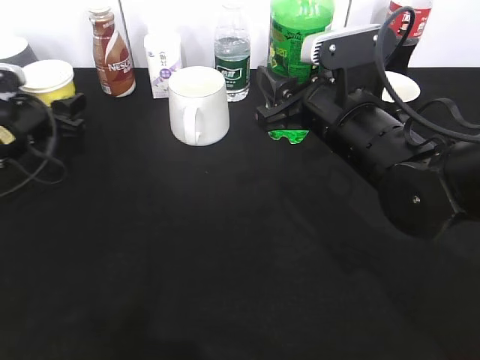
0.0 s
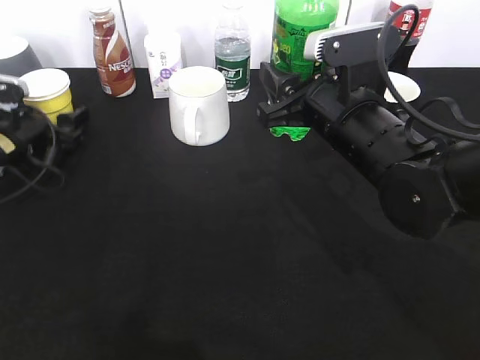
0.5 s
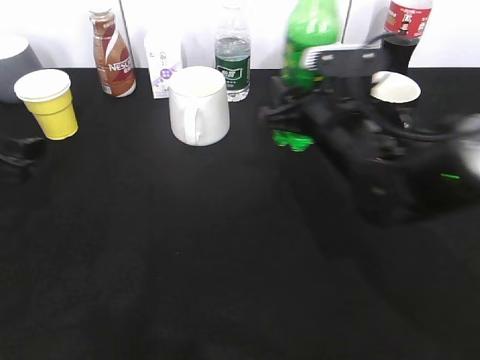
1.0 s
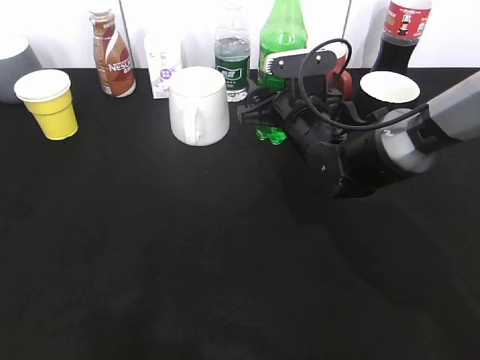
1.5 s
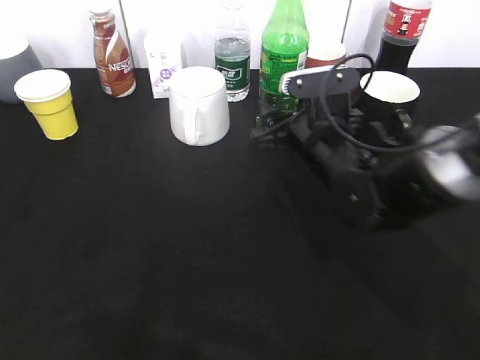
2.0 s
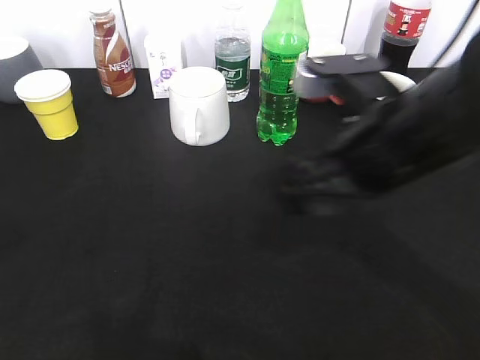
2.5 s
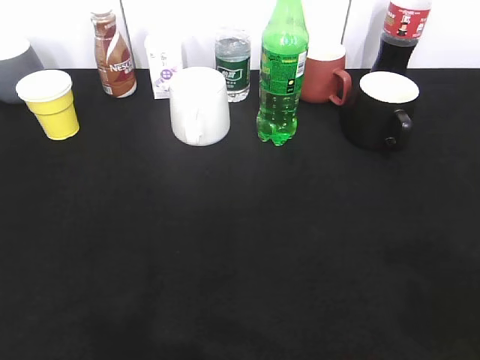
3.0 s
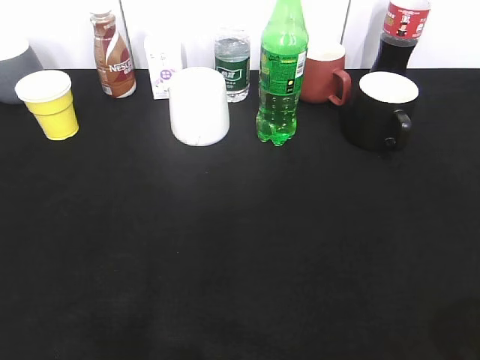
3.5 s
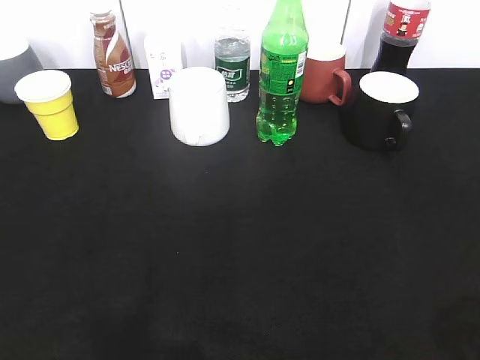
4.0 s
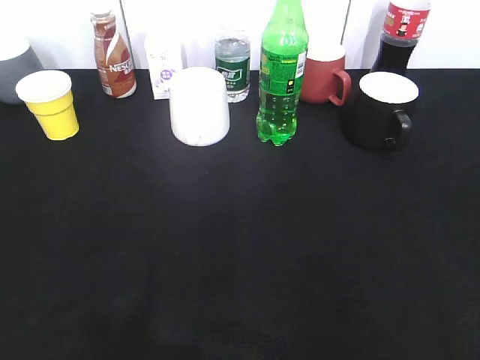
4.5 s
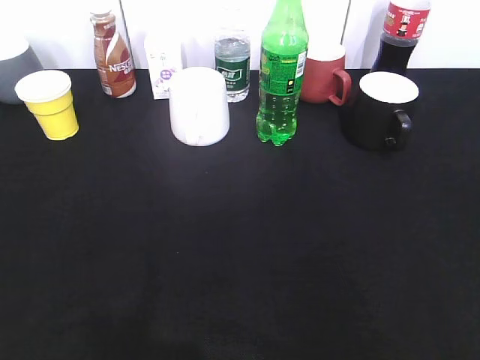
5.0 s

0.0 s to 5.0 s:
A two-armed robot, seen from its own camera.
Step, 0.0 to 1.5 s: Place the sprite bottle on the table with right gripper.
0.0 to 2.5 s: The left gripper travels backward and upward by some 30 cm, while the right gripper travels backward by some 5 cm, and opens up.
2.5 to 5.0 s: The right gripper heads backward and to the right, covering some 30 cm, and closes; the left gripper travels backward by approximately 20 cm, and closes its fingers.

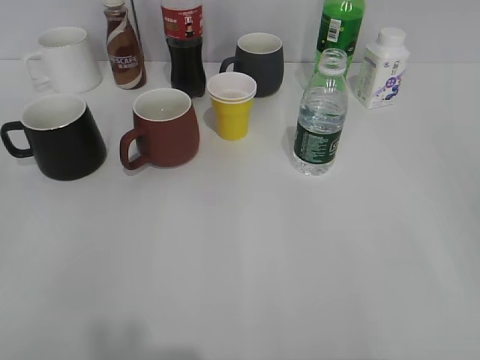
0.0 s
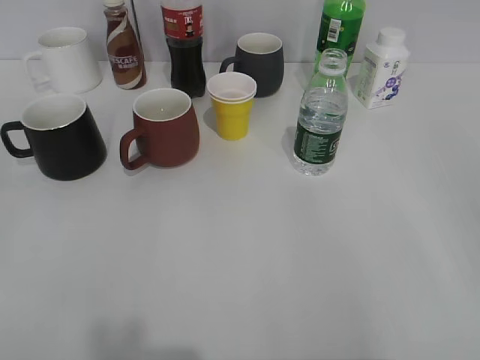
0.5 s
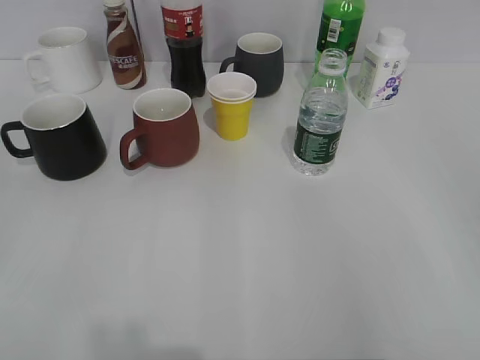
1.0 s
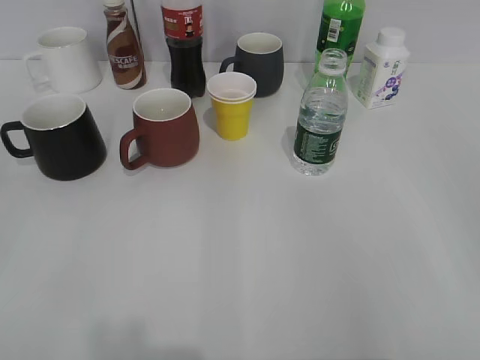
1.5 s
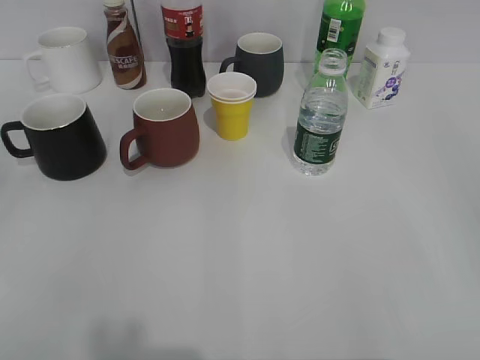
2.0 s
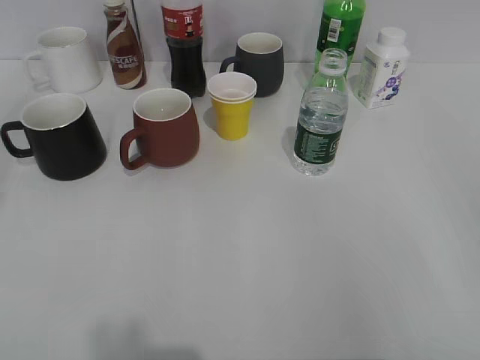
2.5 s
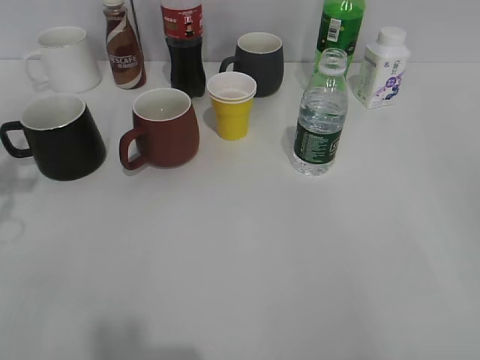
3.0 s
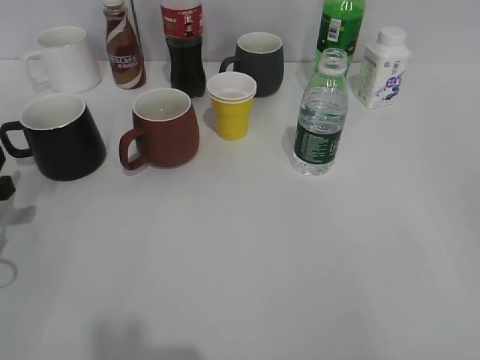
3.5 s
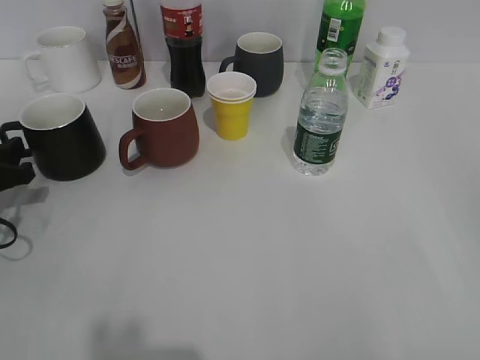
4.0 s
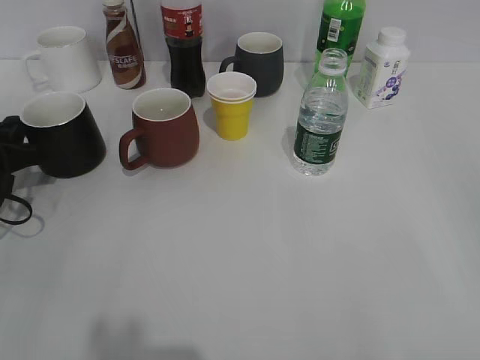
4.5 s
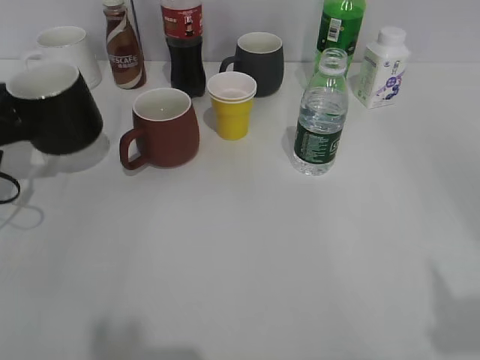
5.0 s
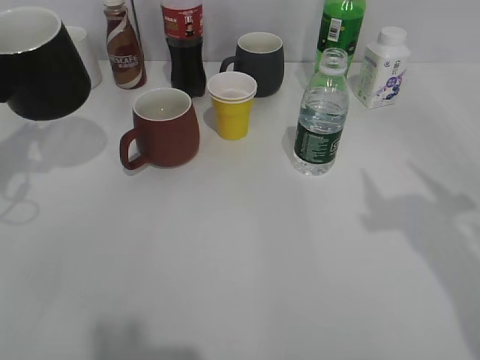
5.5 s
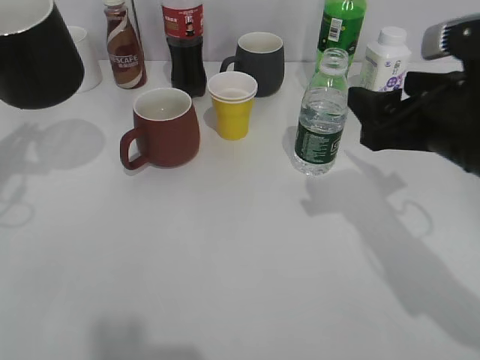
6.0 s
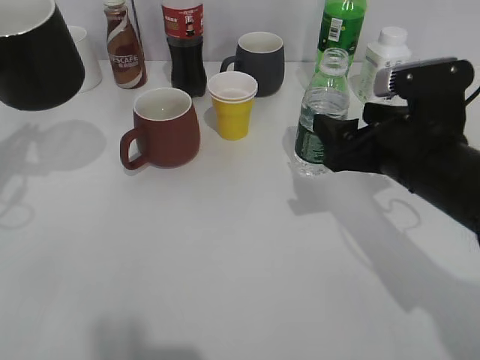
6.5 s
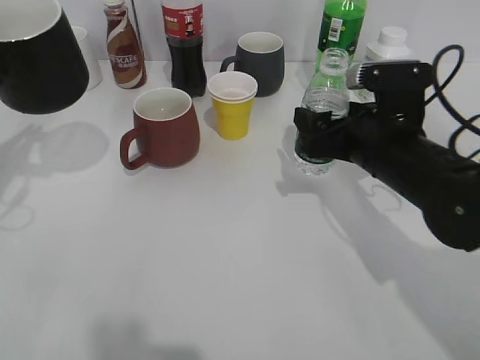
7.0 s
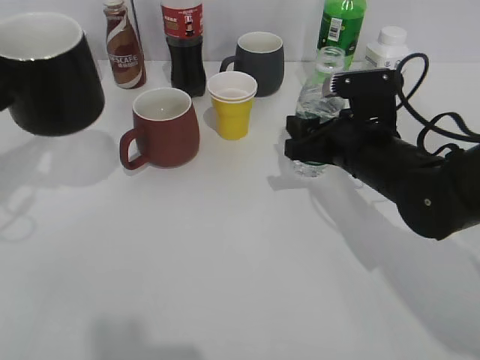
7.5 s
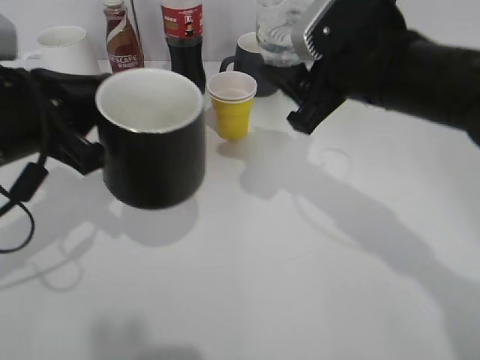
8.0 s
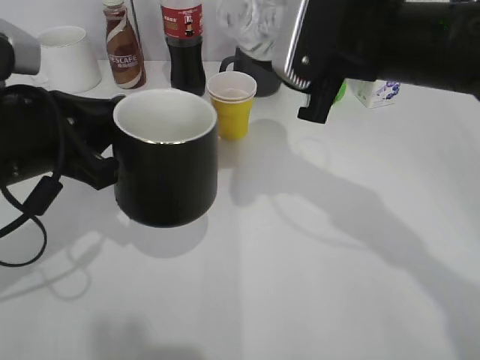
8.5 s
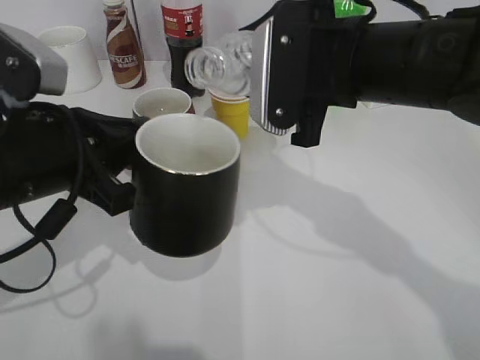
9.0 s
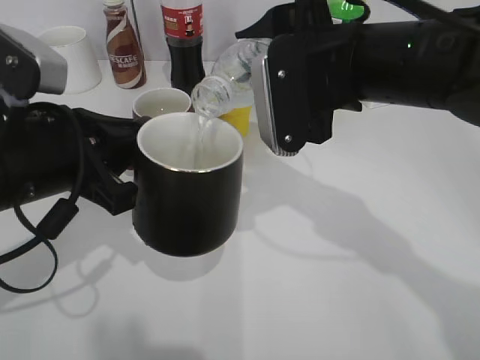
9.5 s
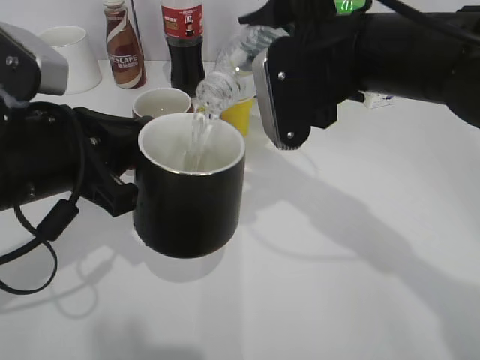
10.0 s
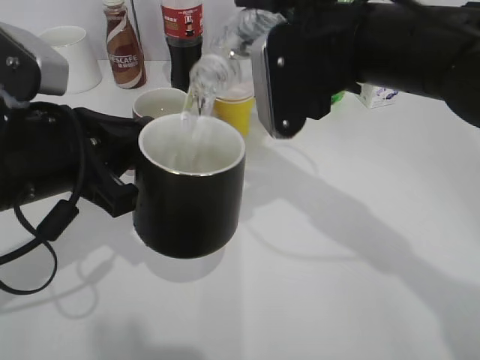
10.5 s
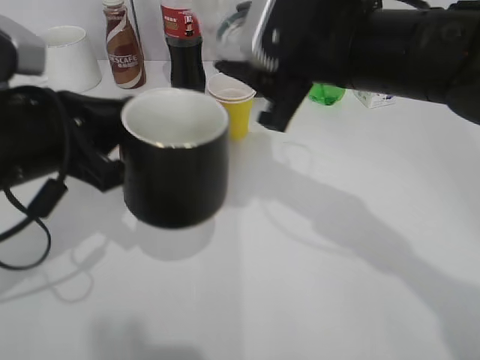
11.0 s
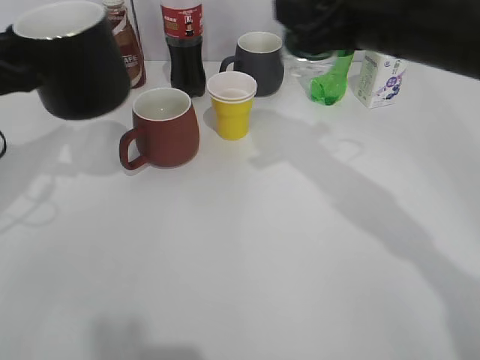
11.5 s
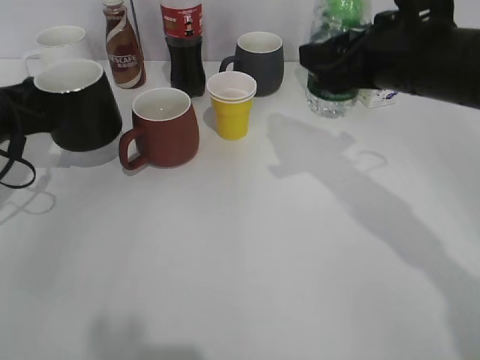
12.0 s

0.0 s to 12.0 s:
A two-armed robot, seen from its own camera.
Step, 2.0 to 4.5 s: Grasp the black cup with left gripper.
Step, 5.0 to 5.5 s: Lift the black cup with left gripper.
Step, 6.0 to 7.0 s: Grasp the bottle with water with right gripper.
Step, 7.5 to 10.5 s: Pour the water from bottle to cup with right gripper.
2.0 to 4.0 s: The left gripper moves forward and downward, about 35 cm.
4.0 to 6.0 s: The left gripper moves upward, roughly 15 cm, and closes. Meanwhile the right gripper shifts approximately 25 cm forward and to the left.
6.0 to 8.0 s: The right gripper is displaced to the left by about 5 cm, moves approximately 10 cm downward and comes back, and closes, while the left gripper is displaced to the right by some 10 cm.
10.0 to 12.0 s: The right gripper goes approximately 5 cm to the right. The left gripper shifts about 20 cm forward, to the left and downward.

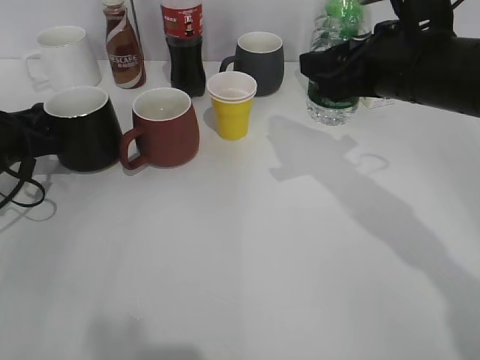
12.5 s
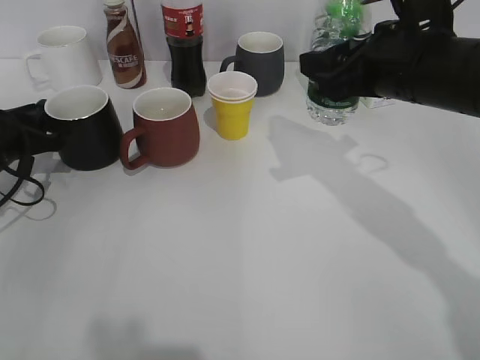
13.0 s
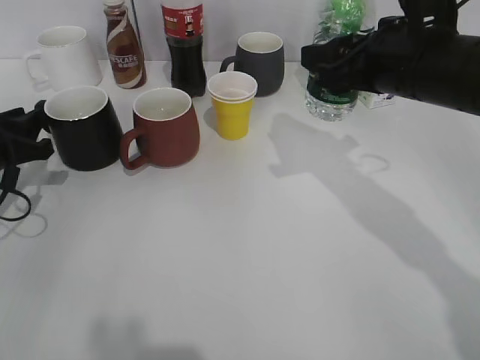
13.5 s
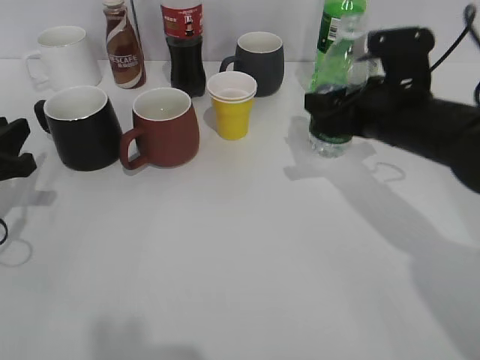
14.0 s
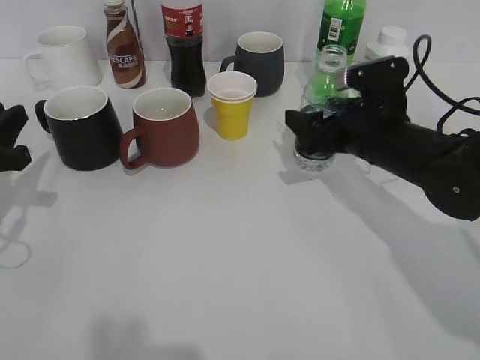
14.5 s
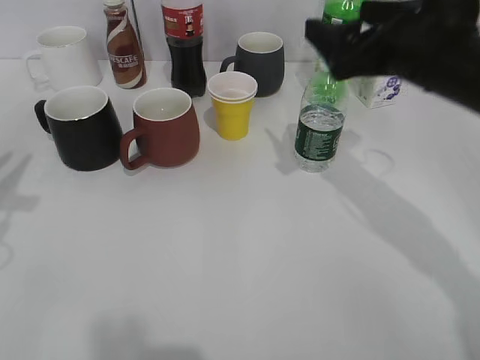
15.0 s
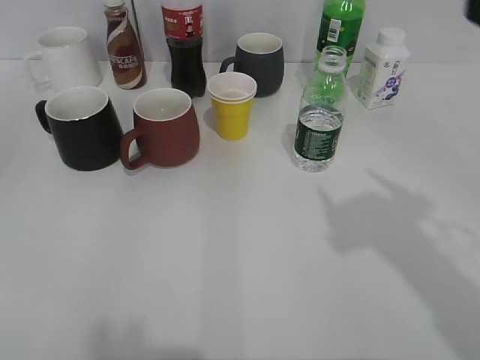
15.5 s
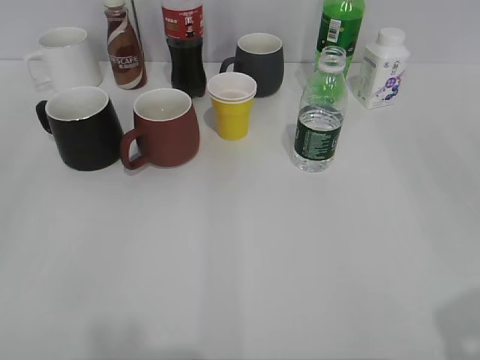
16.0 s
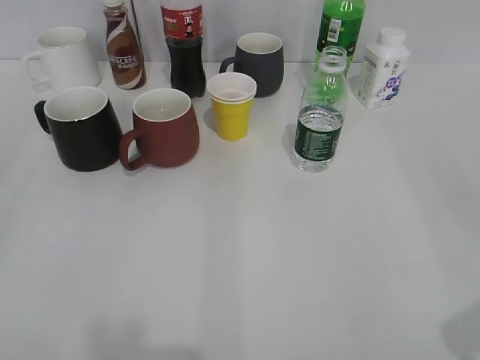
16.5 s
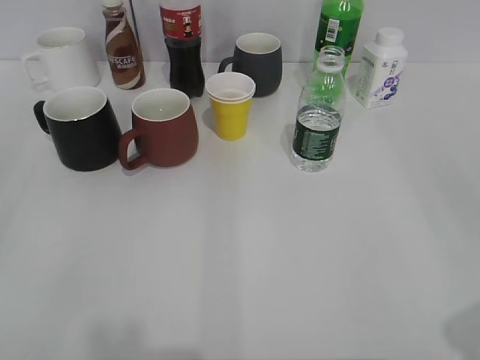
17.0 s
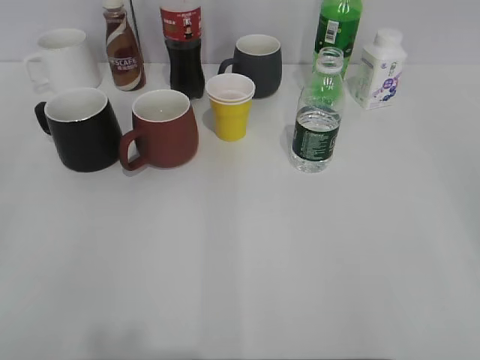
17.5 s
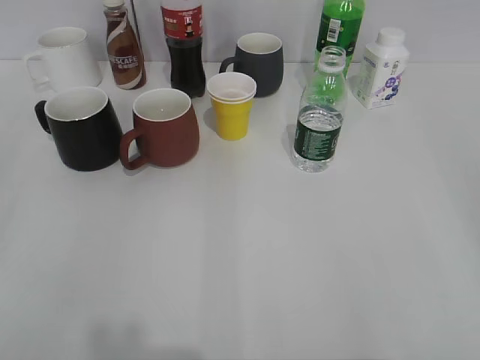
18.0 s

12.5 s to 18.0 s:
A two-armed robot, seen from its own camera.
Step, 14.0 to 14.5 s: Place the water bottle on the table with right gripper.
12.5 to 14.5 s: The left gripper heads backward, covering about 10 cm, while the right gripper travels downward by some 10 cm, and opens.
14.5 to 16.0 s: The right gripper is displaced backward, upward and to the right by roughly 35 cm, and opens up. The left gripper travels backward and upward by roughly 30 cm, and opens its fingers.
